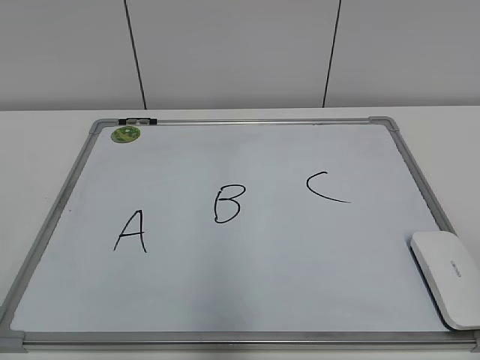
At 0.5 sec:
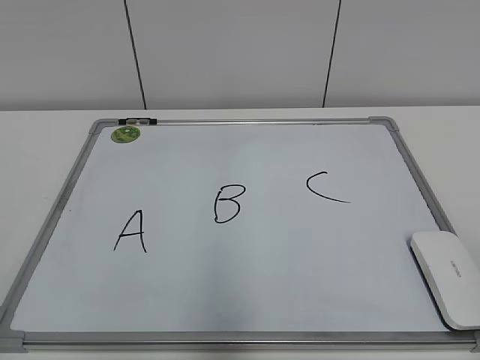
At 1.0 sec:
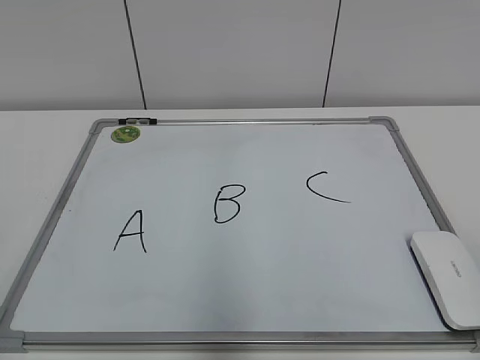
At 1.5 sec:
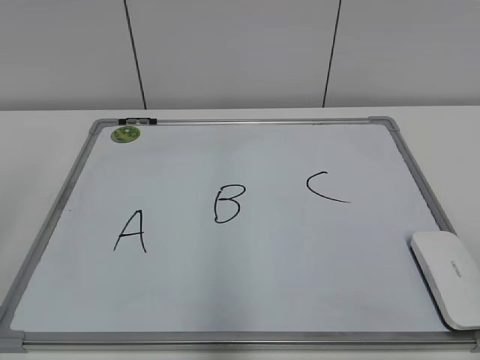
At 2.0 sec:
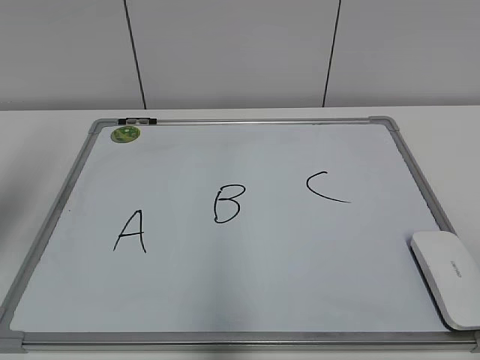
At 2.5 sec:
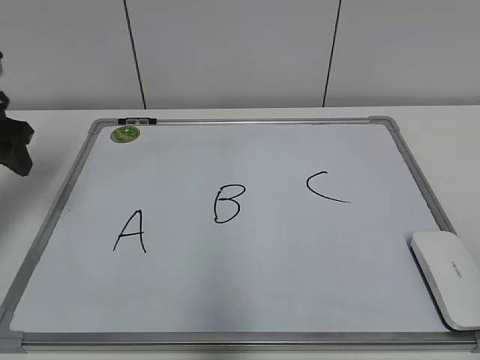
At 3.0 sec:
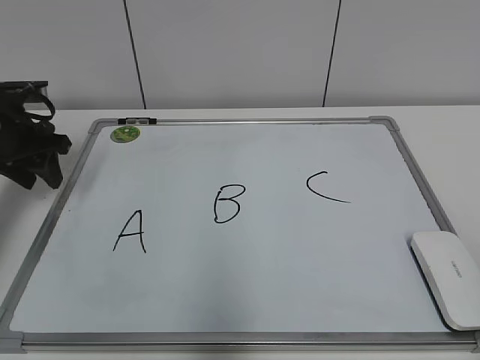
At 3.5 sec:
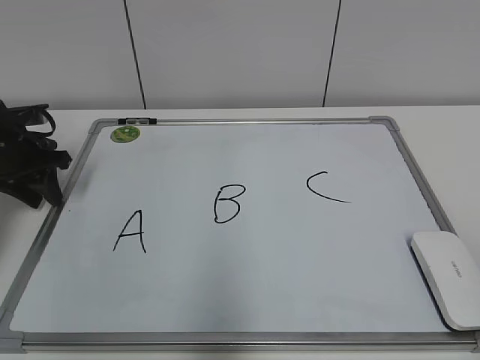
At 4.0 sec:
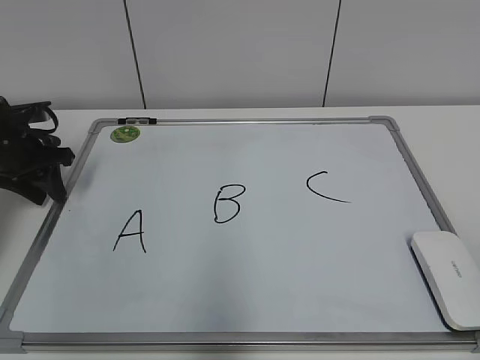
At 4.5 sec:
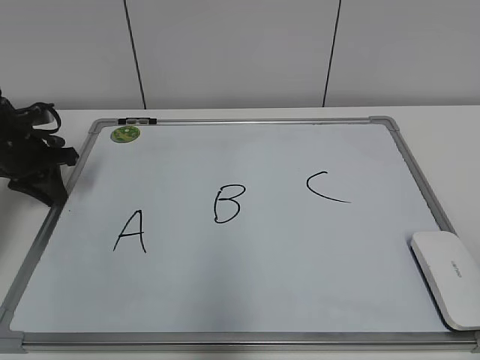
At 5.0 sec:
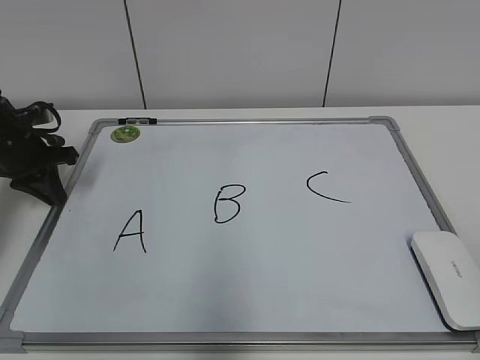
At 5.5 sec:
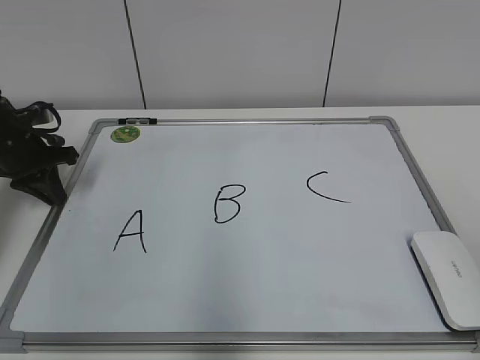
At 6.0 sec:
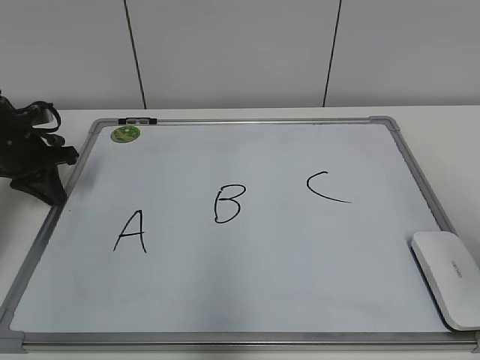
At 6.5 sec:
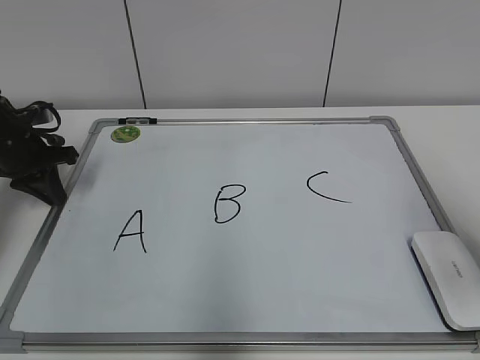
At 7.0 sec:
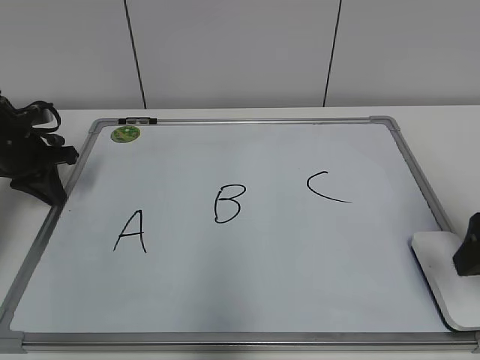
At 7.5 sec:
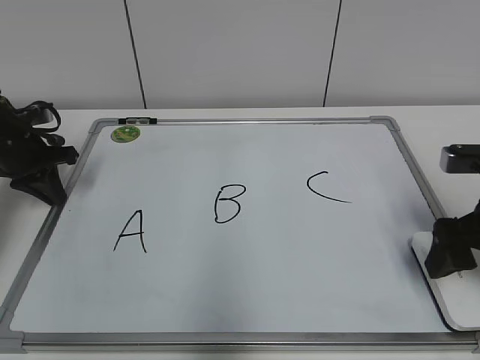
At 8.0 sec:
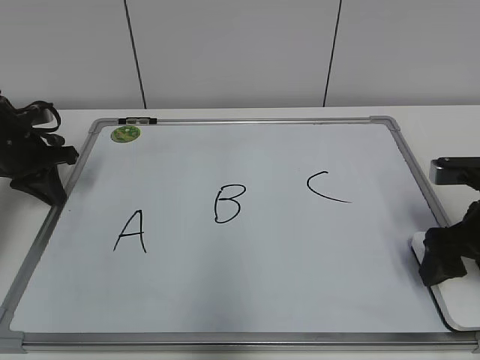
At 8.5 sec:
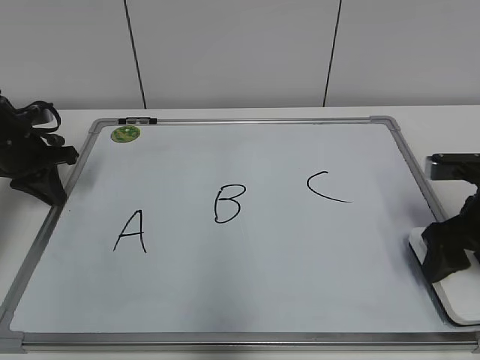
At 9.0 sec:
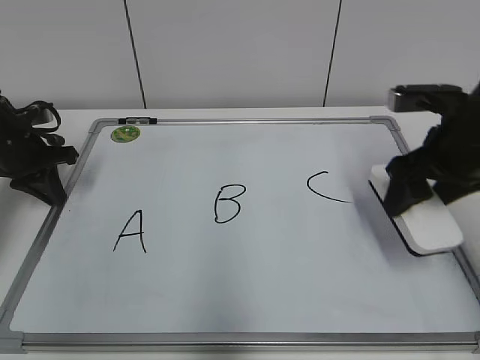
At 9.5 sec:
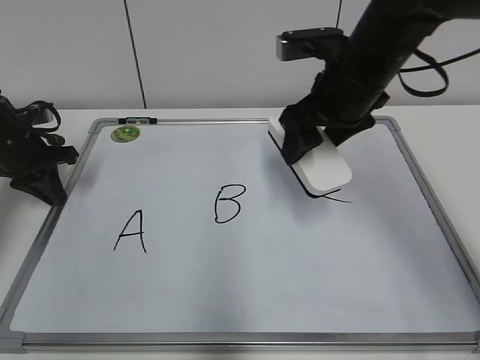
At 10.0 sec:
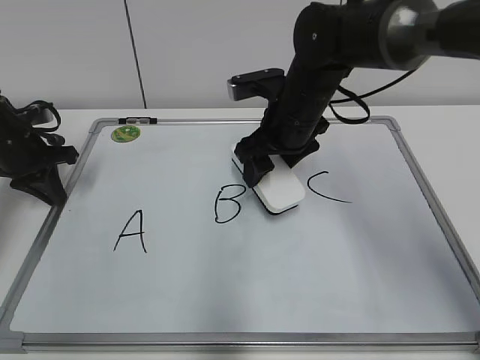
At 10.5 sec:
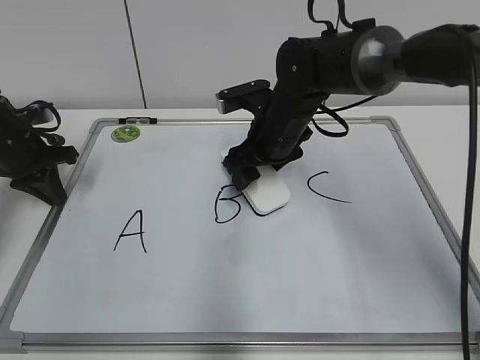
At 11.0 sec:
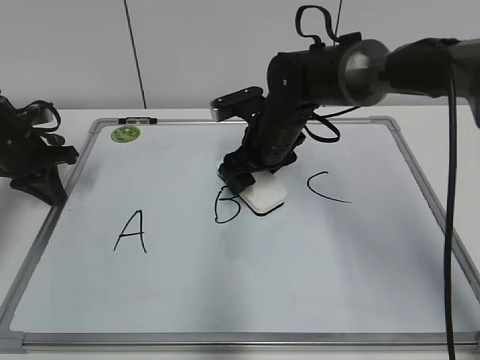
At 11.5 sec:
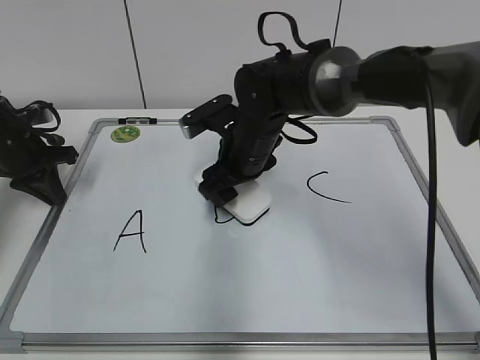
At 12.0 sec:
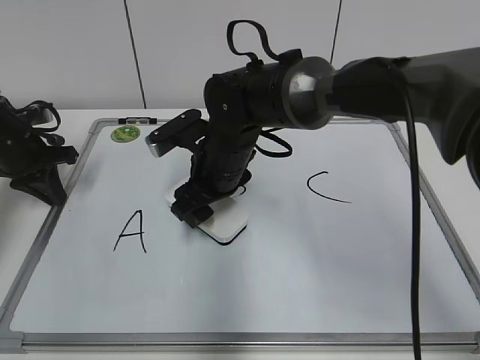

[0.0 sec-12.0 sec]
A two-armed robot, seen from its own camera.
Task of the whole recording: pick up the eraser on the blackboard and erase the letter "B".
Step, 0.0 sec to 5.0 sec: Hold the drawing board steady with your left hand.
Step, 5.5 sec to 8.0 sec: Grab the eraser with your right hand.
2.0 sec to 4.0 sec: The left gripper shifts roughly 25 cm forward and downward, and closes up.
4.0 sec to 6.0 sec: The left gripper closes its fingers.
6.0 sec to 8.0 sec: The right gripper shifts approximately 25 cm forward and downward, and opens up.
8.0 sec to 10.0 sec: The right gripper shifts some 25 cm to the left and forward, and closes up.
10.0 sec to 12.0 sec: The right gripper moves to the left, roughly 10 cm.

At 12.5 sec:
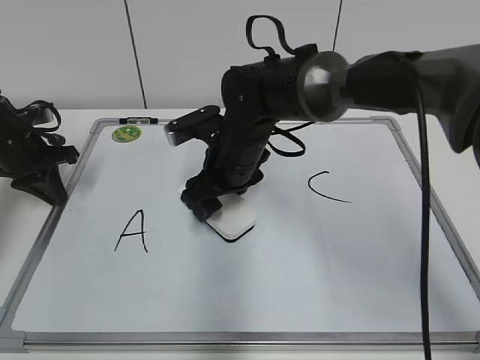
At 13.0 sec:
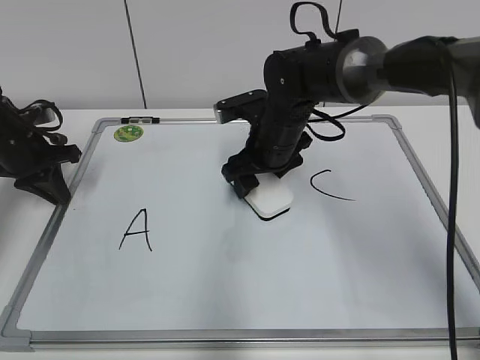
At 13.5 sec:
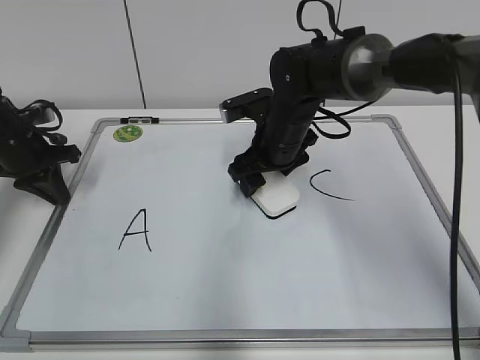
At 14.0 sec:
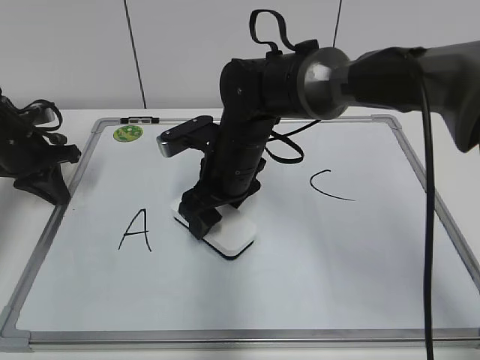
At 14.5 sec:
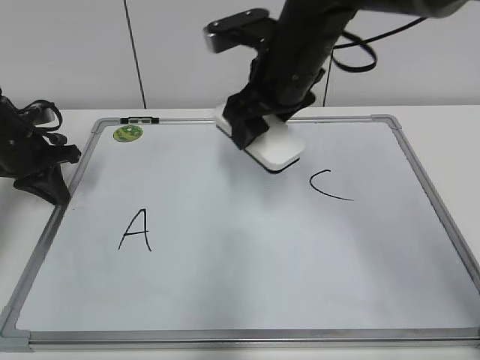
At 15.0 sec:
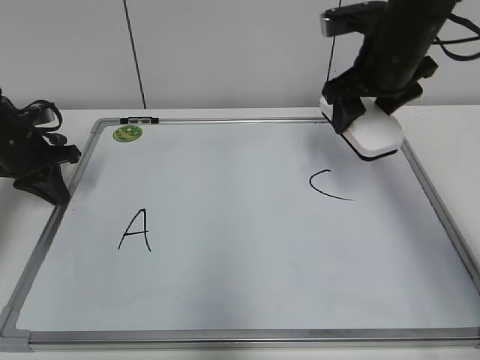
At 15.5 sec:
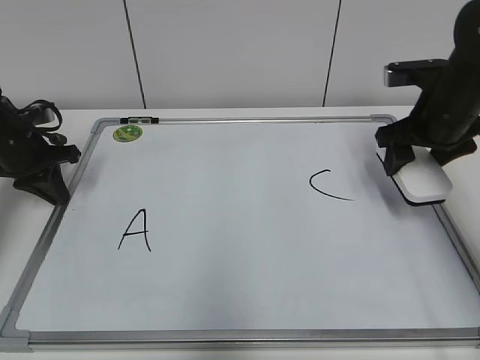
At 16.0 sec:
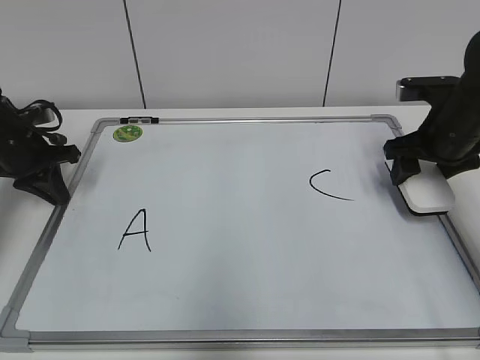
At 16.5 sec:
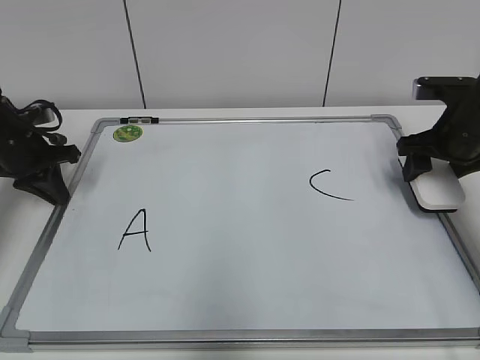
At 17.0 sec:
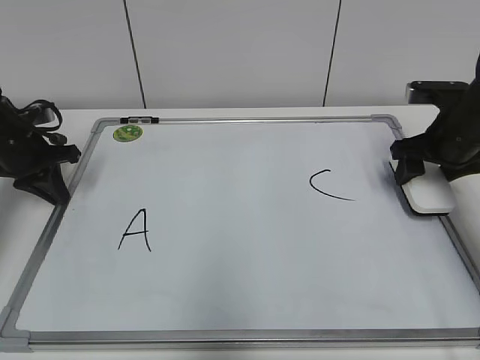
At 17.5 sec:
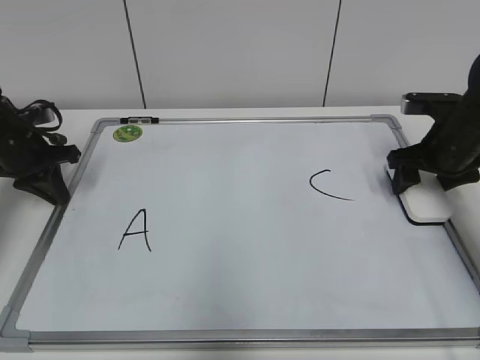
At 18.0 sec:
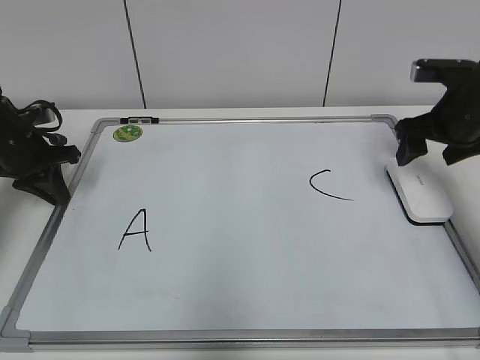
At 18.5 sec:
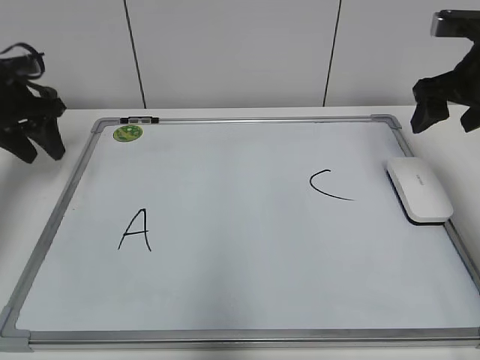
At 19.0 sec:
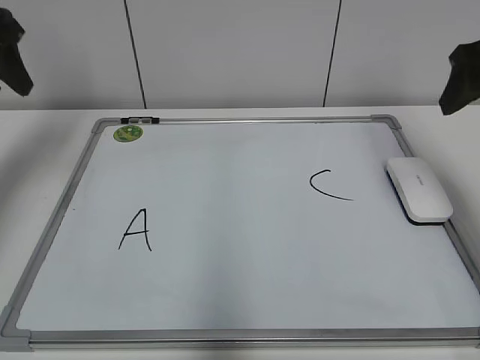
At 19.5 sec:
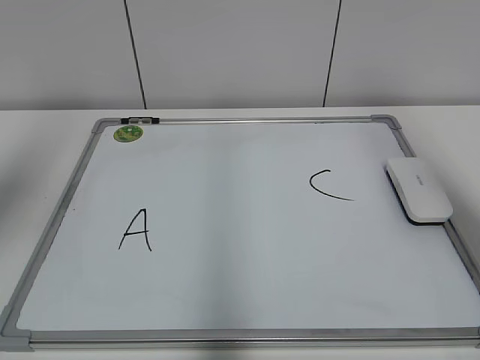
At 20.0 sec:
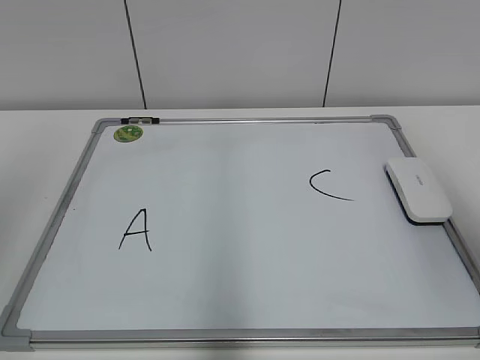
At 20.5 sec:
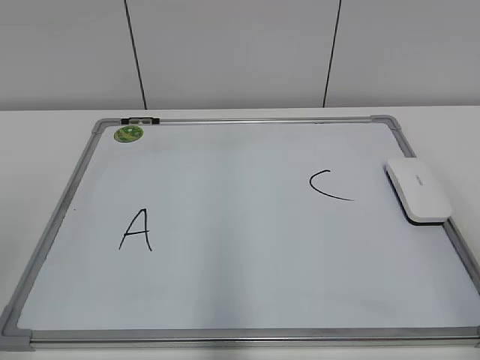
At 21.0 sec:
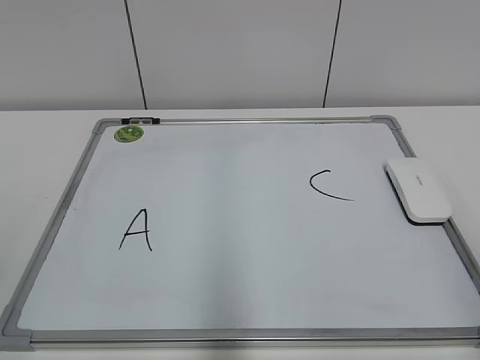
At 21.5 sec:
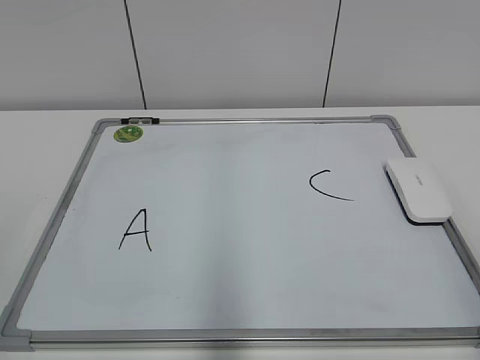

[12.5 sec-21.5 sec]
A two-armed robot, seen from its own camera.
Task of the whole recording: pick up the eraser on the blackboard and erase the letter "B".
Step, 14.5 sec to 17.5 sec: Put down the eraser with your right hand.
12.5 sec to 14.5 sec: The right gripper heads upward and to the right, covering roughly 15 cm.
14.5 sec to 17.0 sec: The right gripper heads to the right and downward, covering some 25 cm.
17.0 sec to 19.5 sec: Both grippers move upward and backward, some 25 cm. The left gripper opens its fingers, while the right gripper opens.
19.5 sec to 21.5 sec: The two grippers go roughly 25 cm backward and downward. The right gripper closes.

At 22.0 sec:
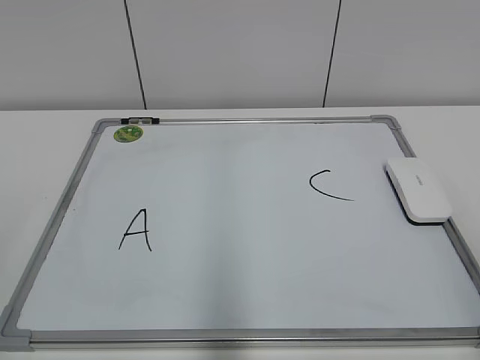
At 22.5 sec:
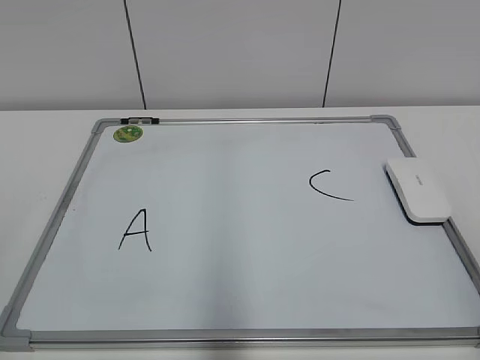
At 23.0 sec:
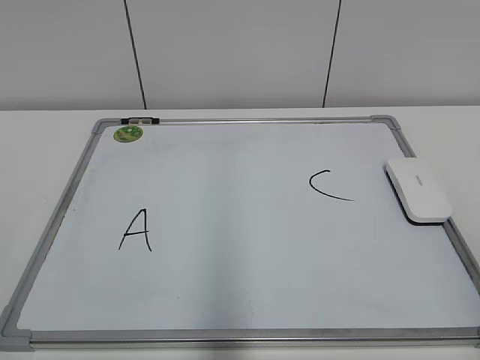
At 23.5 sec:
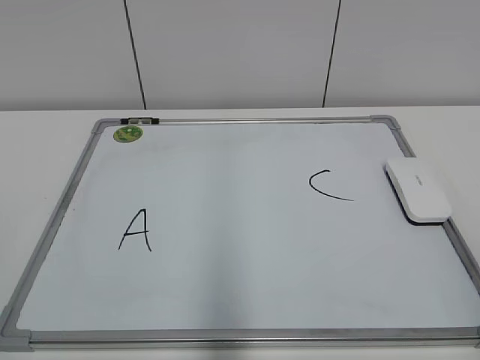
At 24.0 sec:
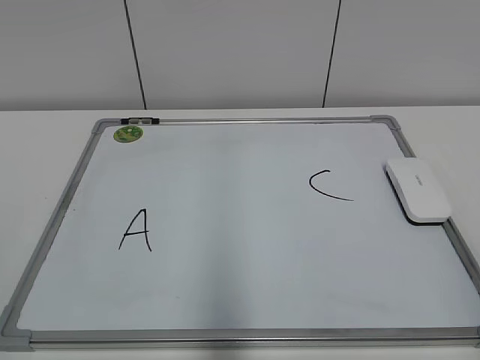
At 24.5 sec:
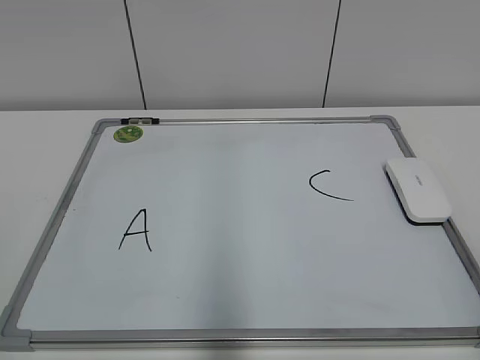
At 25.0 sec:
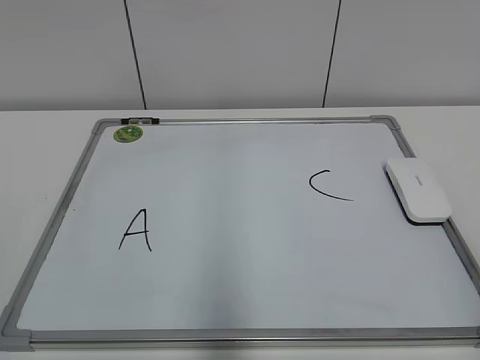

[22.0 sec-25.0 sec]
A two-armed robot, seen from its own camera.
Task of the whole recording: pick up the eraser on the blackboard and erase the letter "B".
23.5 sec to 25.0 sec: The two grippers keep their place.
